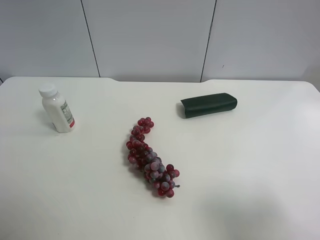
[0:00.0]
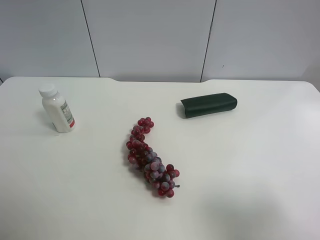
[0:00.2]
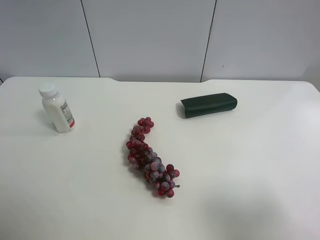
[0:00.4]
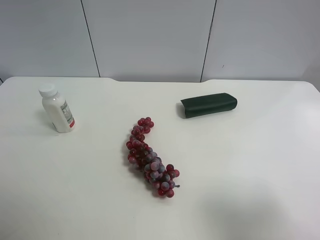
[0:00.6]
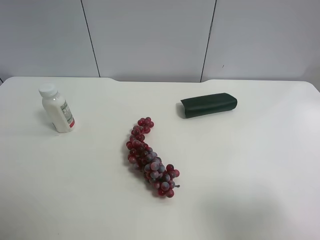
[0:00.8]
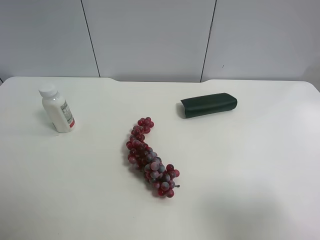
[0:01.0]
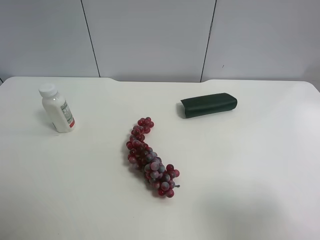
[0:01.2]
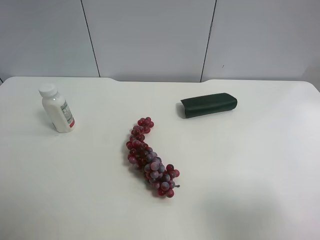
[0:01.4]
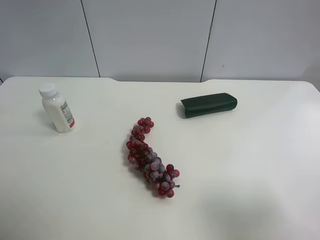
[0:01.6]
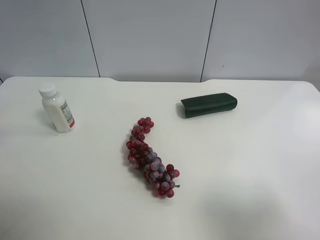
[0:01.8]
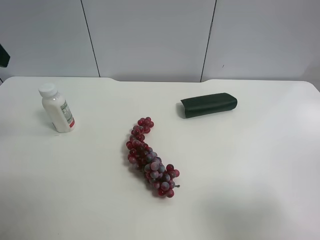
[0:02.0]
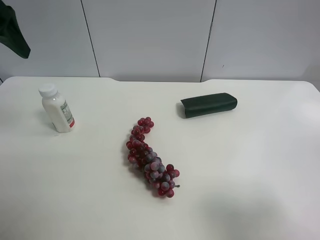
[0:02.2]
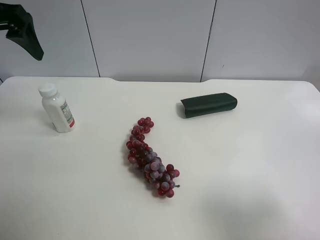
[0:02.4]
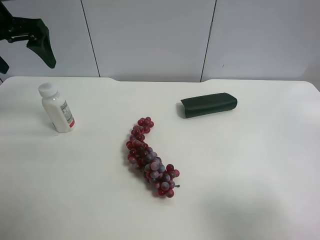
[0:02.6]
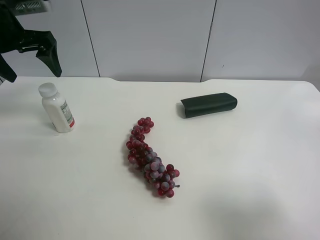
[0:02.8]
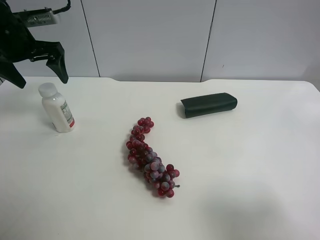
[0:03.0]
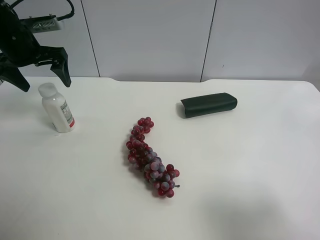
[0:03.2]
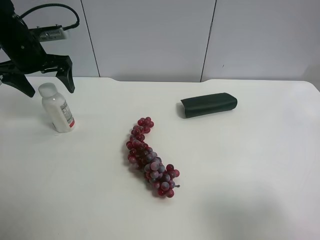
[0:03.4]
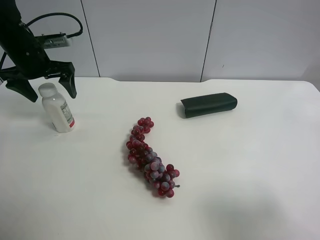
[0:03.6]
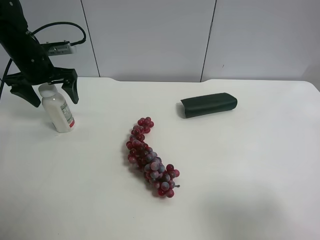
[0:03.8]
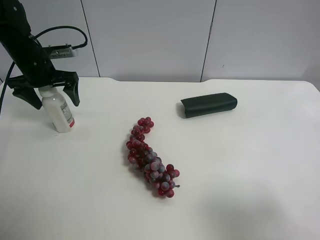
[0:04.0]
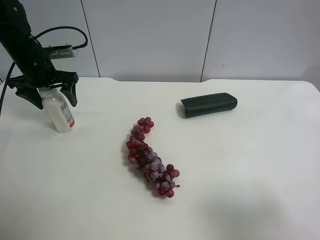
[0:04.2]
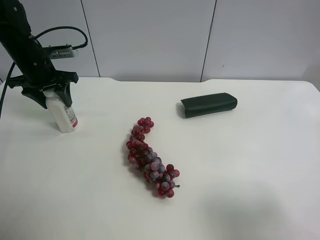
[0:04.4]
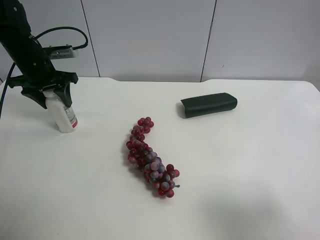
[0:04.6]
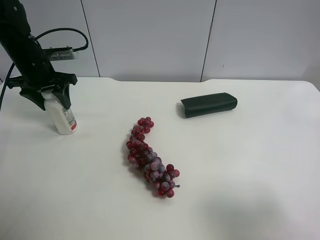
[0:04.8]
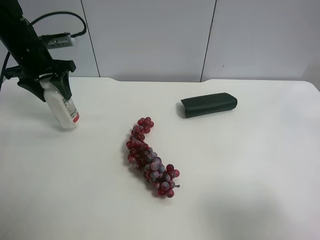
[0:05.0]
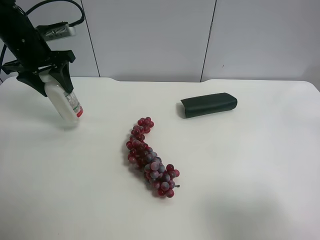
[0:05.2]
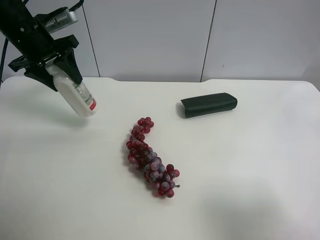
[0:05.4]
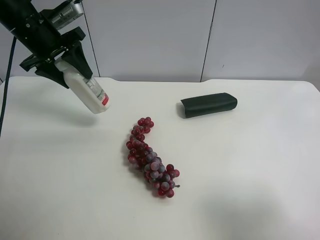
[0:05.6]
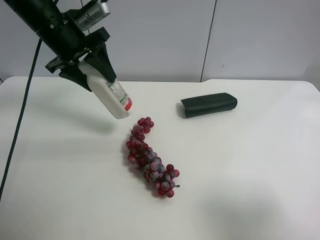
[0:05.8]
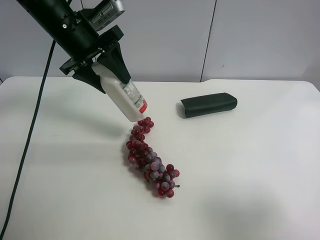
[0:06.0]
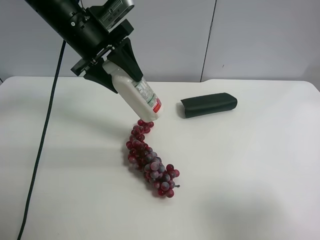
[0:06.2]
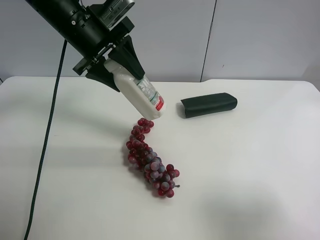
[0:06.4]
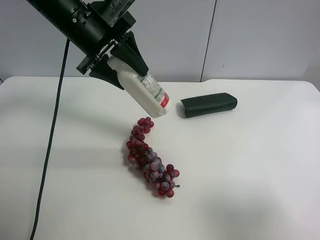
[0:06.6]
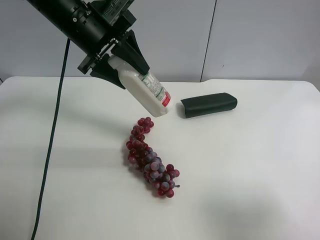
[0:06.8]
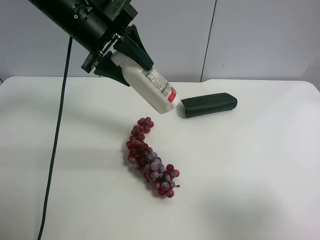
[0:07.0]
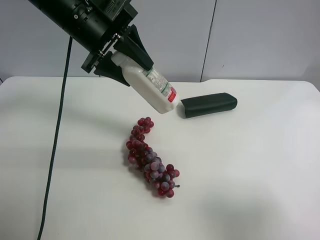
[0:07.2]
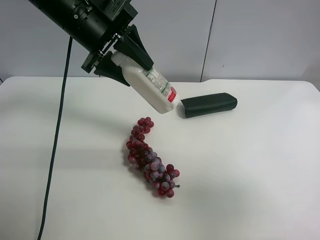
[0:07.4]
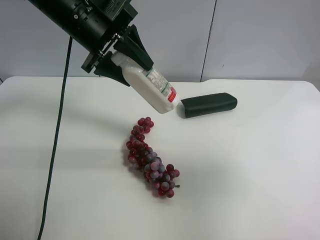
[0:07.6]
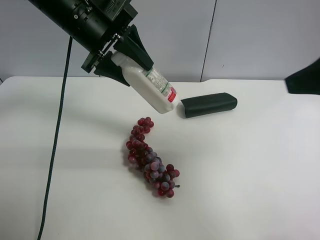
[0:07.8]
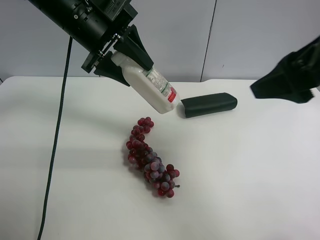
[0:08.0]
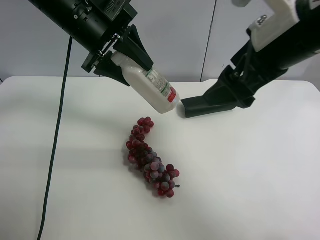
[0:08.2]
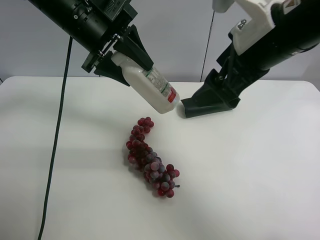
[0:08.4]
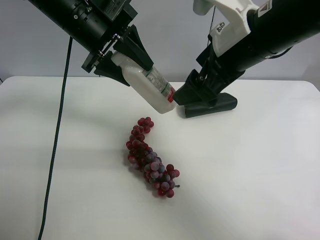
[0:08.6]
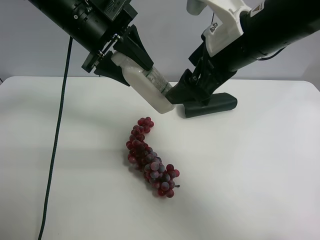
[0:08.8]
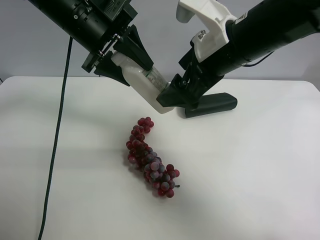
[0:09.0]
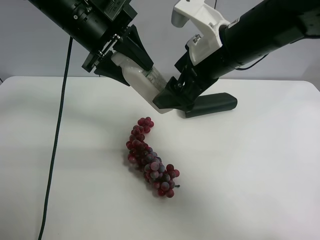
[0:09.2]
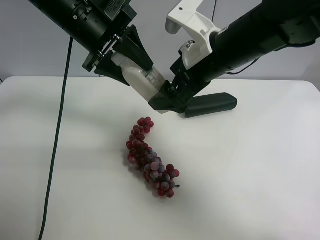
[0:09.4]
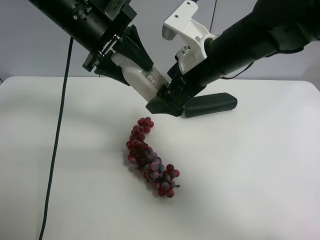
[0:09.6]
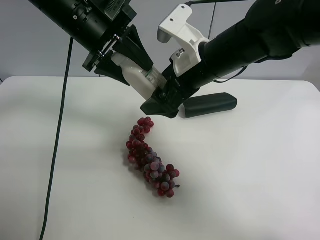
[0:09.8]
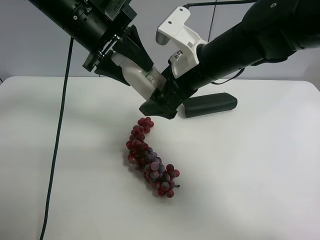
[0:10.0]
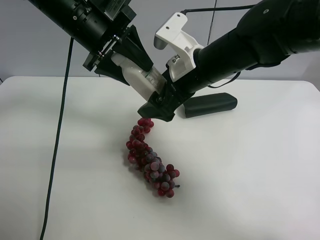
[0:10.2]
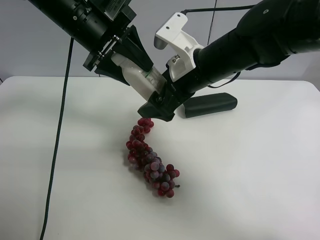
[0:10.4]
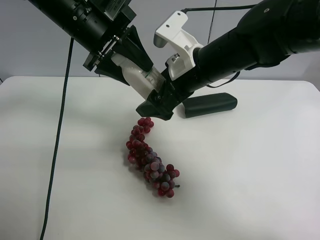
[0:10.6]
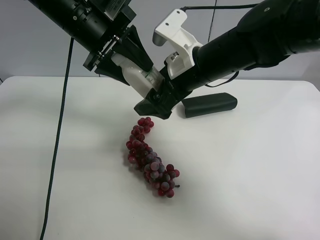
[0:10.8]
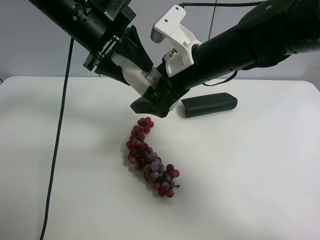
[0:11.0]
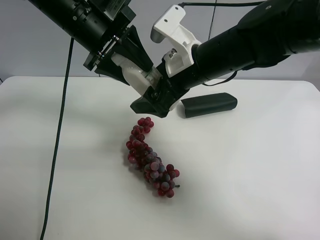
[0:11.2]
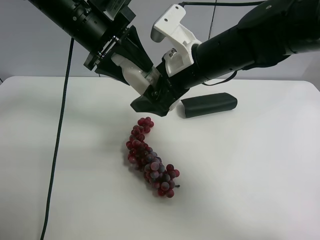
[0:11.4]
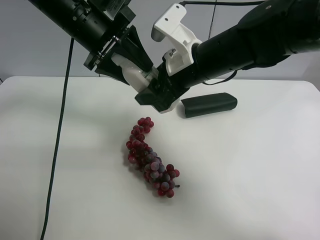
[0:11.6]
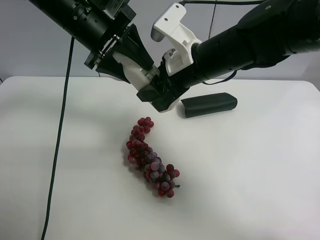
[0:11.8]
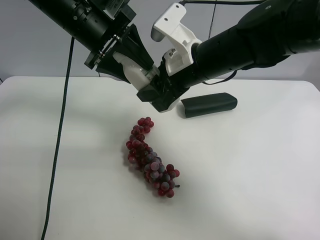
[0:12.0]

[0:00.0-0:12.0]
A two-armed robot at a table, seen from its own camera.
Task of the whole recording: use the left gripper to pick up the item and transfer it from the left gripper to the right gripper.
1.6 to 3.0 s: The left gripper is displaced forward and downward by about 30 cm.
3.0 to 4.4 s: The left gripper goes roughly 10 cm downward, and closes up.
4.4 to 6.0 s: The left gripper travels to the right and upward by roughly 15 cm.
6.0 to 7.6 s: The right gripper heads forward and upward, covering roughly 10 cm.
7.6 to 9.0 s: The right gripper heads forward and to the left, covering about 25 cm.
9.0 to 10.4 s: The right gripper heads downward, covering some 5 cm.
10.4 to 12.0 s: The right gripper closes.

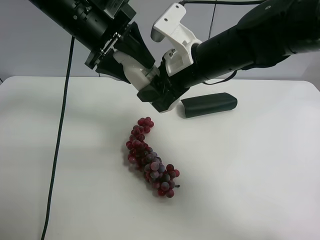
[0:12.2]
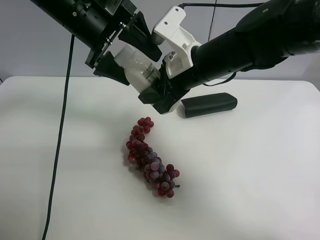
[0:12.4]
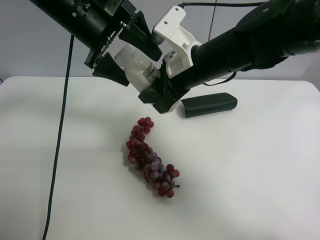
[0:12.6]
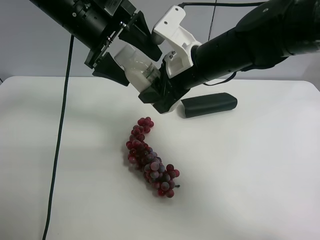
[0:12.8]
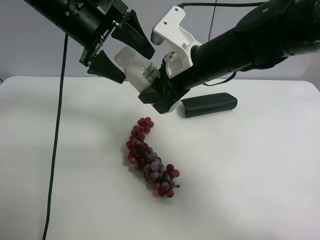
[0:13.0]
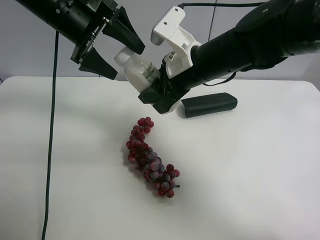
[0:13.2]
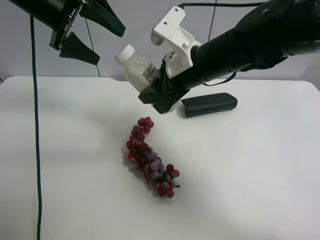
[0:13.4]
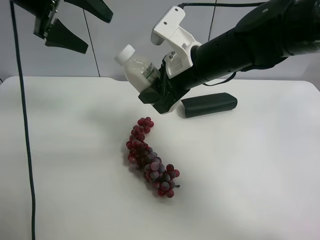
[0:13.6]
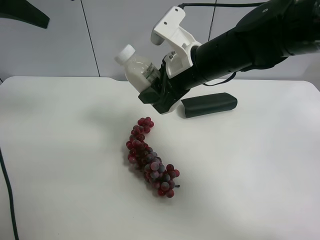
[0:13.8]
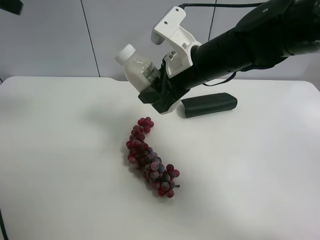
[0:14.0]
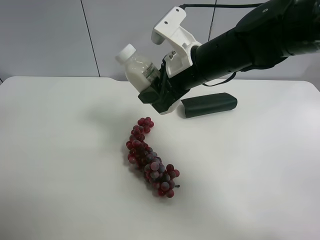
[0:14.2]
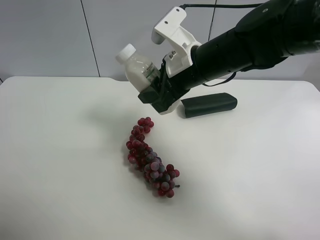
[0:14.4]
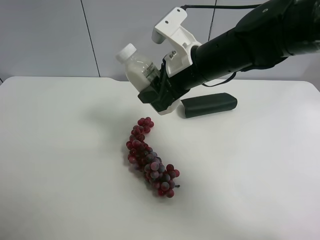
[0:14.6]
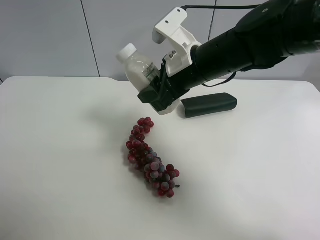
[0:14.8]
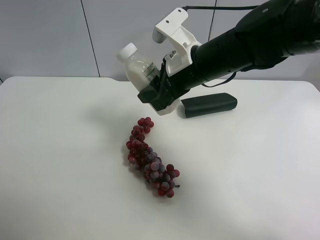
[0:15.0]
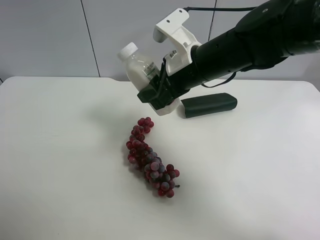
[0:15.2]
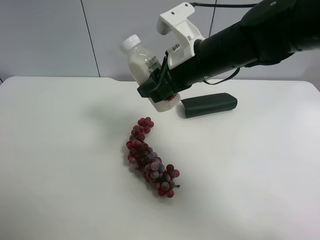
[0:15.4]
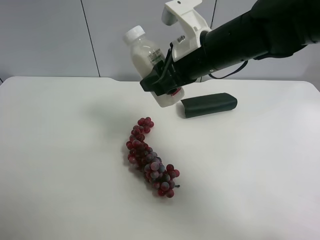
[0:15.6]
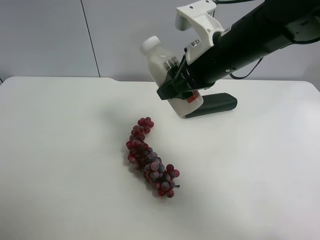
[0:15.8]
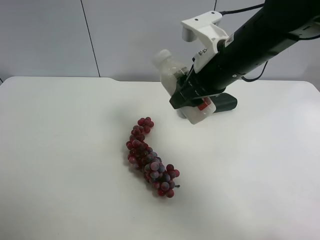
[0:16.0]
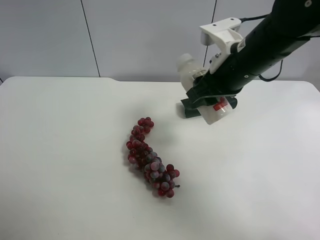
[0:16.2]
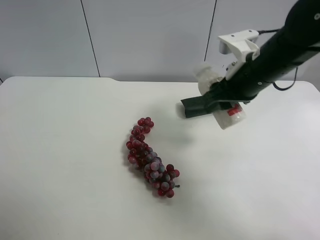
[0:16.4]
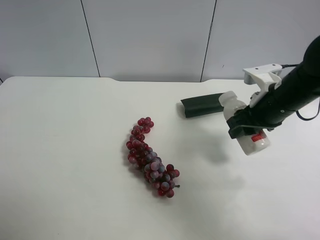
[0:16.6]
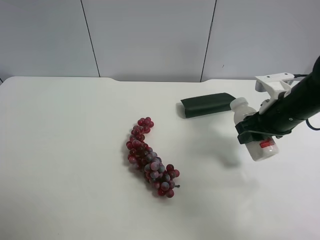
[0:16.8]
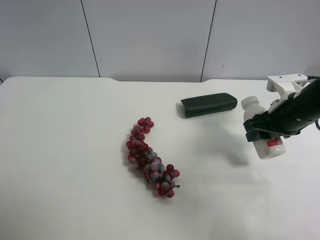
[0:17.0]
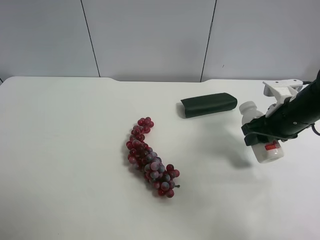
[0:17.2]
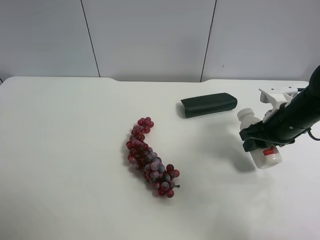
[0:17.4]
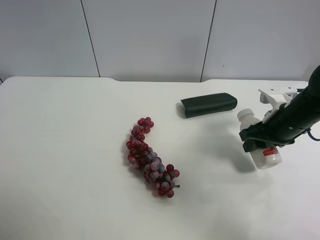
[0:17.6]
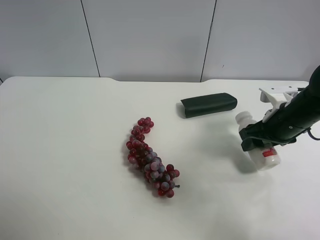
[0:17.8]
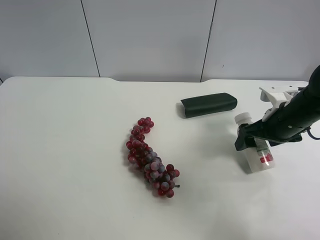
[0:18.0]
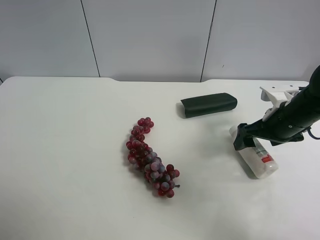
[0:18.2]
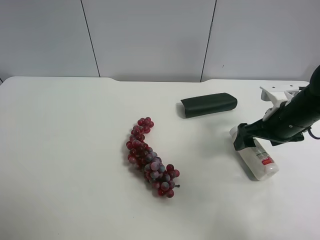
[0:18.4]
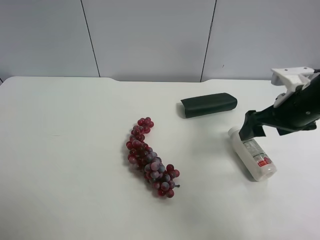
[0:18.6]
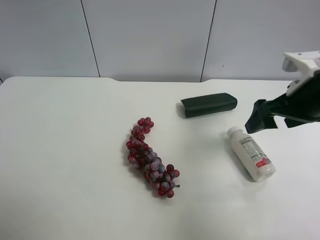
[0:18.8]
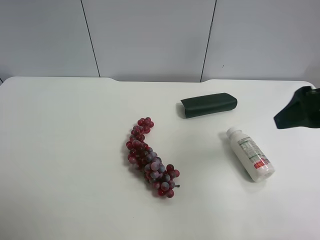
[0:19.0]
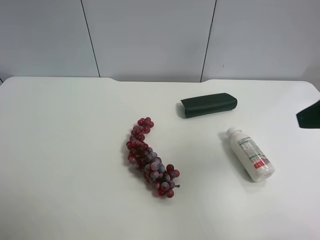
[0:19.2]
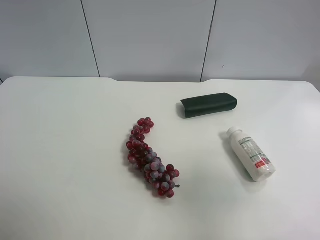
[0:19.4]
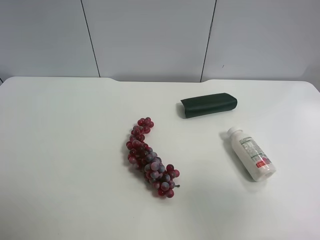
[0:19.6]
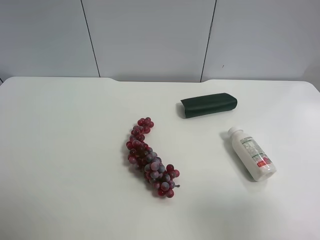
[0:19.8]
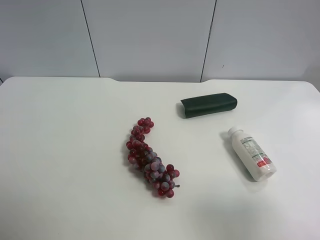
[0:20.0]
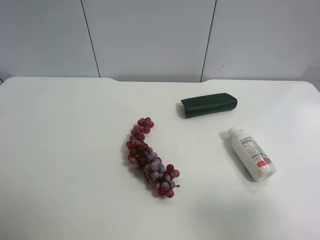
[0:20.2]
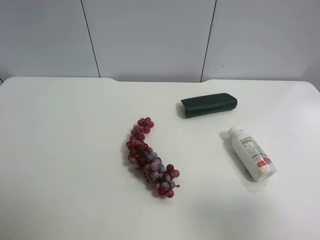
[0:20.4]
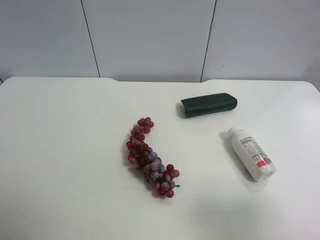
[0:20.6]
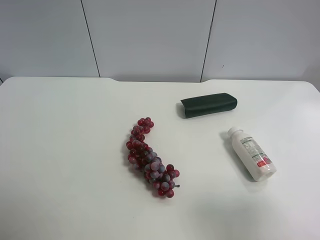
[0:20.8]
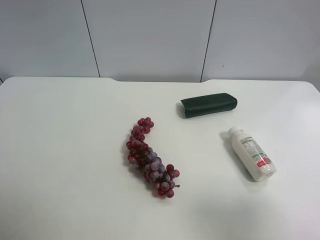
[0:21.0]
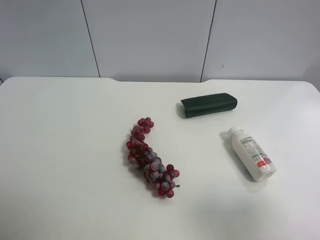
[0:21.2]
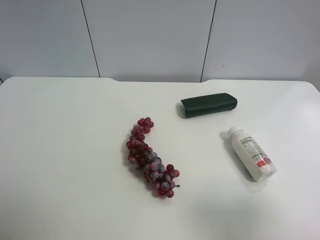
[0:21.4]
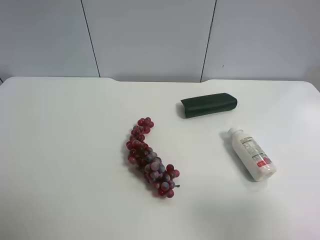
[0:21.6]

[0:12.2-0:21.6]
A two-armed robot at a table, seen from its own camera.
Task of the whole recording: use the left gripper to pick up the item and transfer it from the left gripper to the right gripper.
12.2 to 13.8 s: The left gripper heads to the left and upward, covering roughly 15 cm, and opens its fingers.
13.8 to 15.4 s: The left gripper travels backward by about 30 cm.
15.4 to 17.0 s: The right gripper travels to the right and downward by approximately 20 cm.
17.0 to 18.4 s: The right gripper opens.
18.4 to 20.0 s: The right gripper goes some 30 cm backward and upward.
20.0 to 21.6 s: Neither gripper changes place.

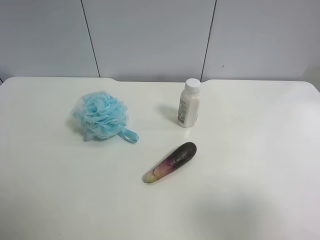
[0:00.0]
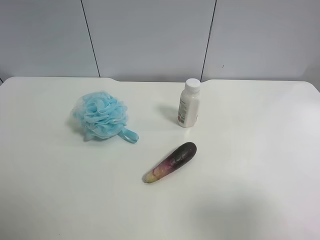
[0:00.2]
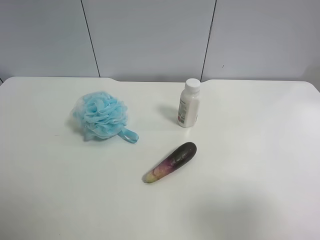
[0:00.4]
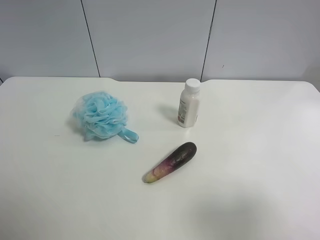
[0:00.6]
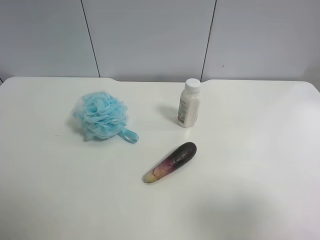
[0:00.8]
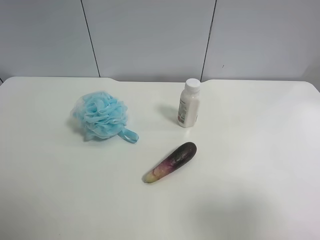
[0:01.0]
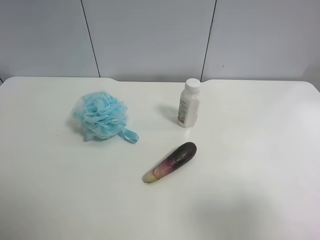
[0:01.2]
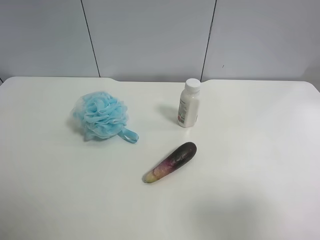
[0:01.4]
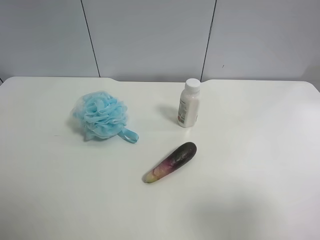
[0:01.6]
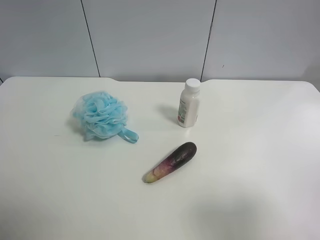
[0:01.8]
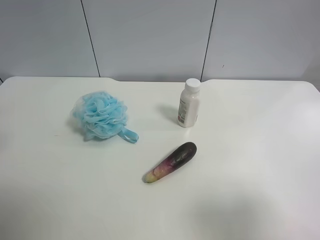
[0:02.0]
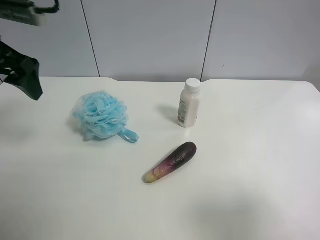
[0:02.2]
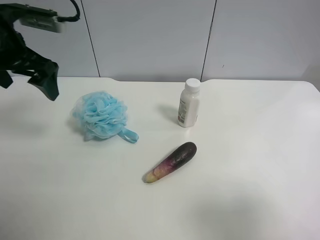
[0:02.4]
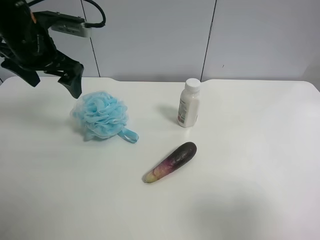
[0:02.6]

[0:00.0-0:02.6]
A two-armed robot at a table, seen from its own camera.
Task of the whole recording: use the left gripper to pick up the item and transfer it from the left gripper to the right gripper.
0.0 to 1.2 s: Both grippers stay about where they are.
1.2 to 2.6 s: The left gripper goes some 35 cm forward.
